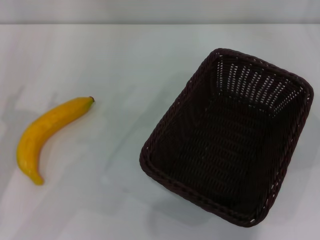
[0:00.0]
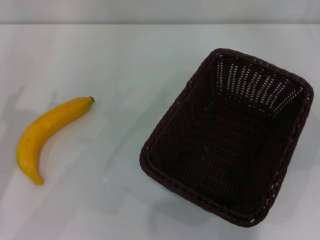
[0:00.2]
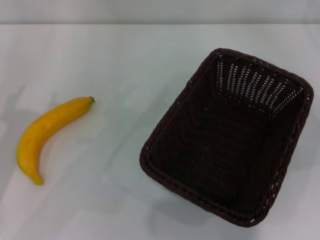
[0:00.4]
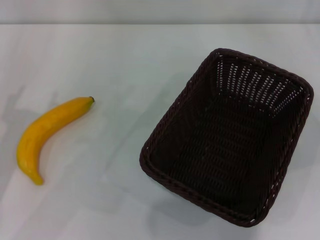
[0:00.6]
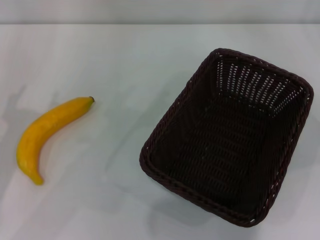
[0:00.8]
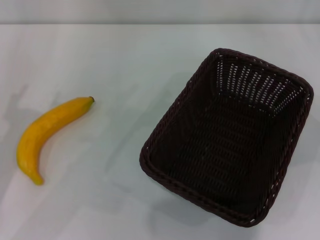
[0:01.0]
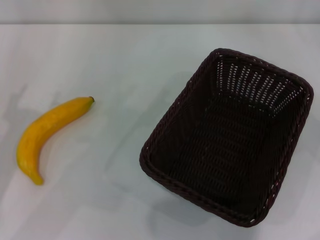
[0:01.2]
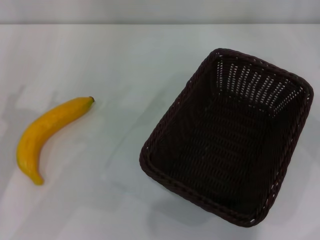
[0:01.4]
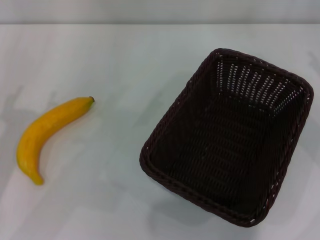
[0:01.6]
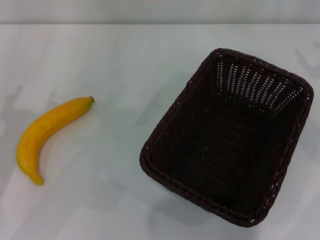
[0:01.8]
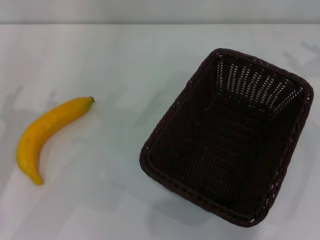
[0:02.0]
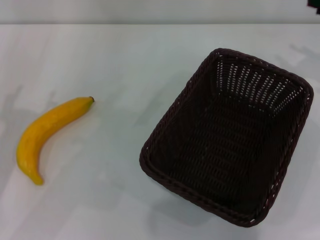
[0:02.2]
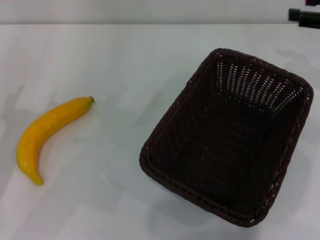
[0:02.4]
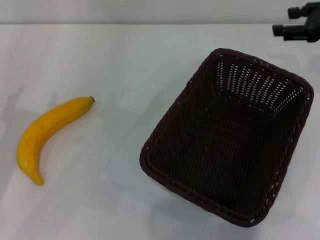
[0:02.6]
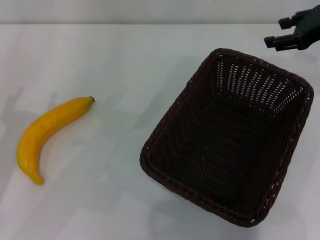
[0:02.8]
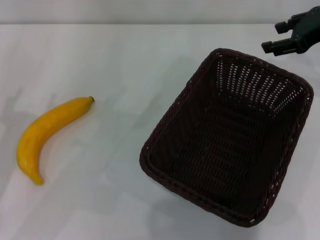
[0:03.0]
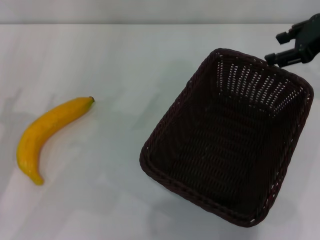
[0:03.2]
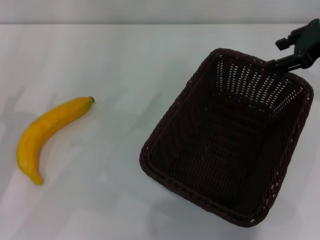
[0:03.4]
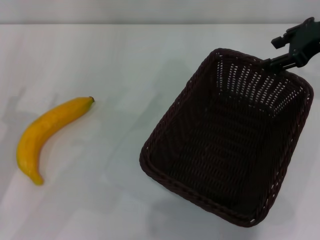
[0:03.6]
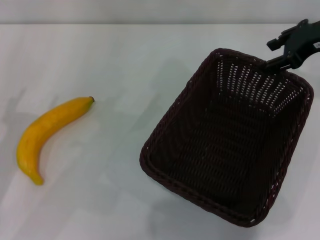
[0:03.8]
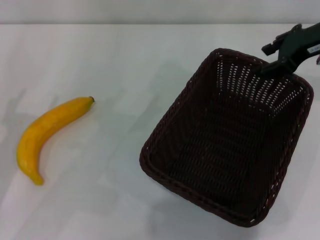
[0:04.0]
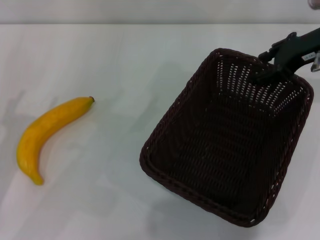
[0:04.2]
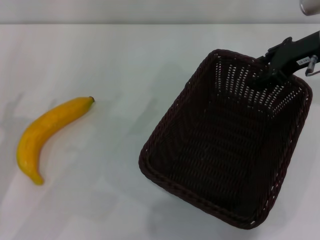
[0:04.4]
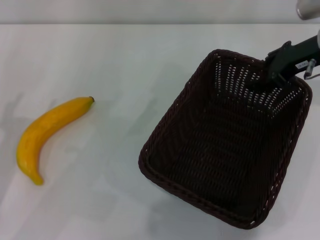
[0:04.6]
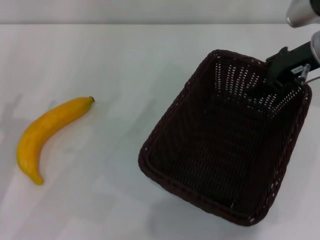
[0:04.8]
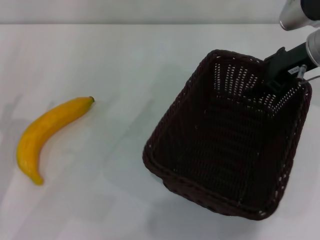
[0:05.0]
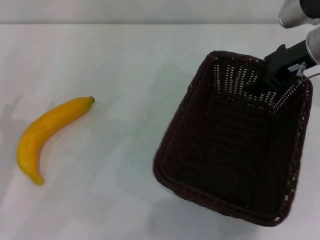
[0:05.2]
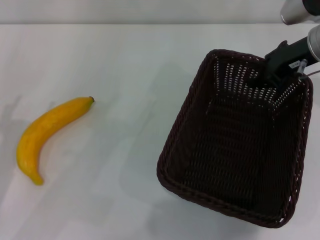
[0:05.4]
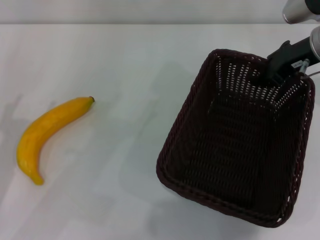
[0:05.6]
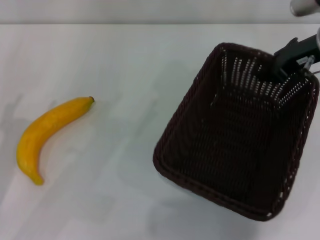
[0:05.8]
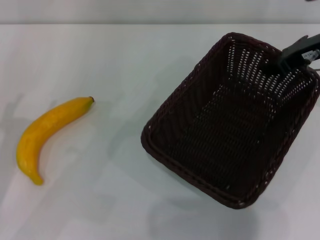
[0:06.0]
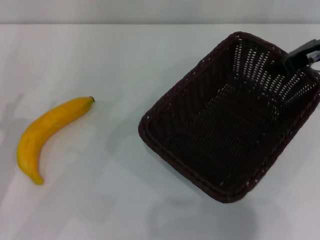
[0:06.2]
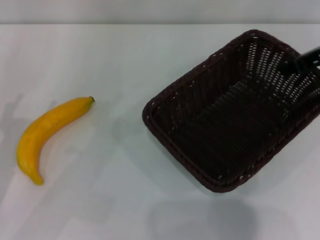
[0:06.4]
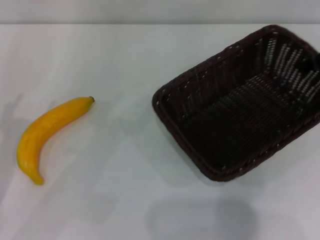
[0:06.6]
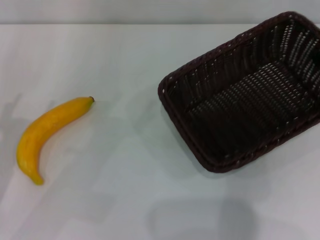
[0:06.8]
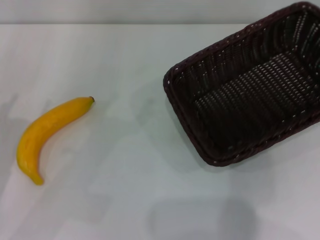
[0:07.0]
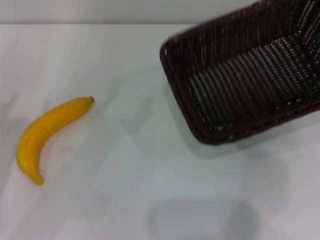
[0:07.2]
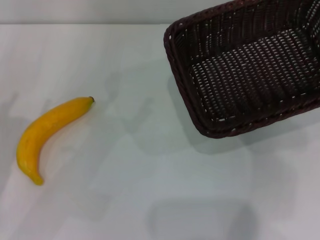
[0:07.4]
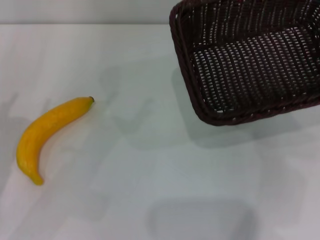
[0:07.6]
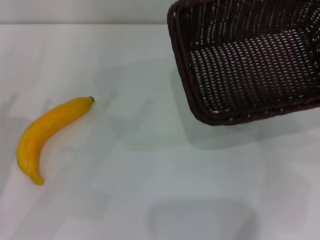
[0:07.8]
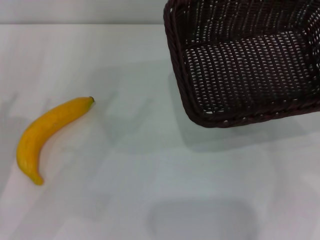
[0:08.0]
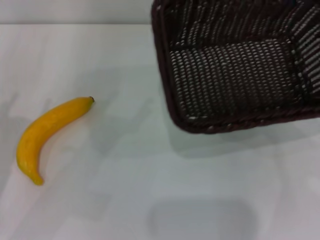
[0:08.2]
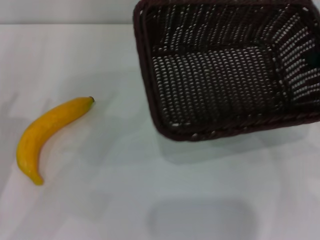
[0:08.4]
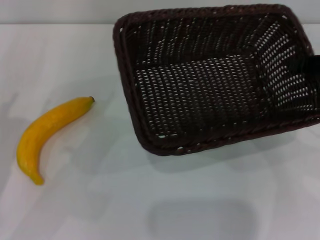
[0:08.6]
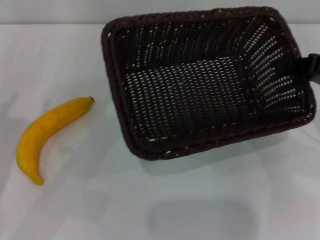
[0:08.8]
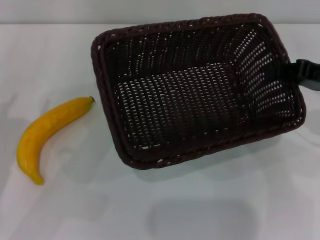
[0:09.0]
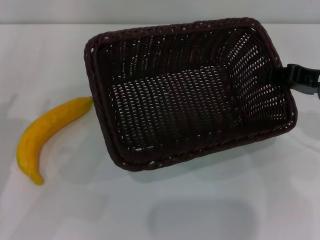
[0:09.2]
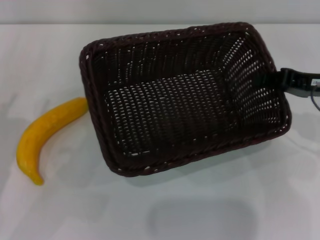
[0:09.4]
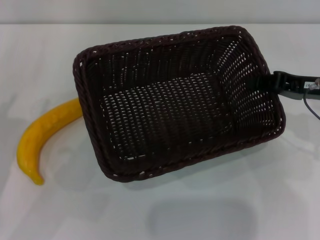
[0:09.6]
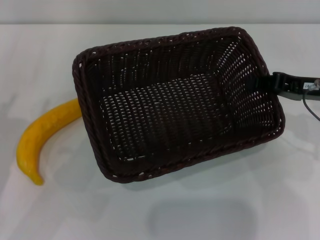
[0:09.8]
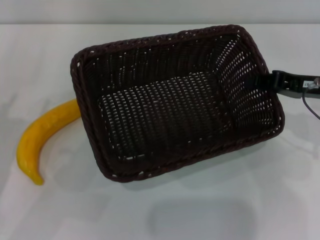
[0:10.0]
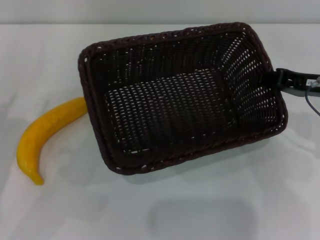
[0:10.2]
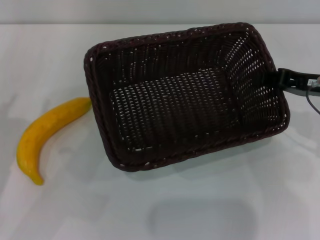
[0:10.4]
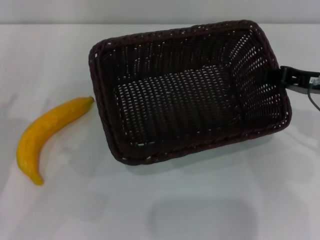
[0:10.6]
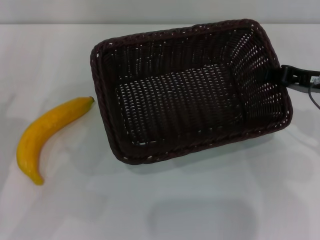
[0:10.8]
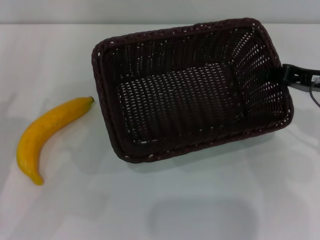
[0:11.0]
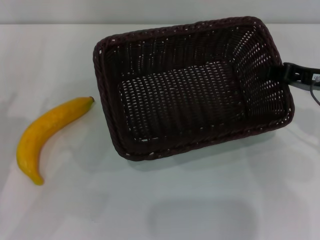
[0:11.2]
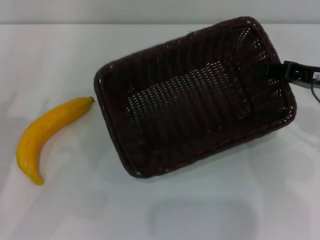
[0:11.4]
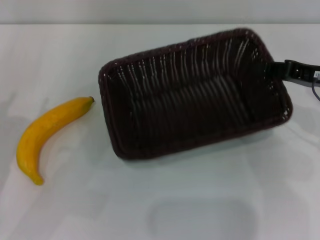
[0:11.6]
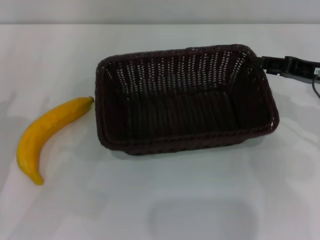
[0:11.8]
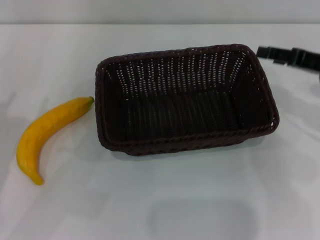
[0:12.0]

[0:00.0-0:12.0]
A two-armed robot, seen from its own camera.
Step, 0:00.0 to 0:05.8: Pick up the dark basket with the right gripper.
Step, 0:06.2 to 0:11.8: Place the dark basket in the center of view with the right gripper.
0:01.6 to 0:03.0: The right gripper travels to the left, forward and upward by about 15 cm.
0:03.0 to 0:04.4: The grippers stay close to where they were, moving slightly.
0:04.4 to 0:06.0: The right gripper closes up.
0:06.0 to 0:07.6: The right gripper shifts about 15 cm to the right, backward and upward.
0:07.6 to 0:09.0: The right gripper moves to the left and downward, about 10 cm.
0:09.0 to 0:10.4: The grippers stay close to where they were, moving slightly.
0:10.4 to 0:12.0: The right gripper opens up.

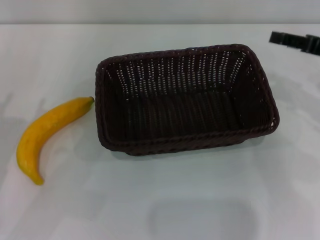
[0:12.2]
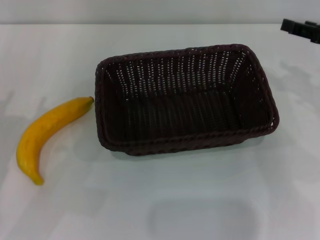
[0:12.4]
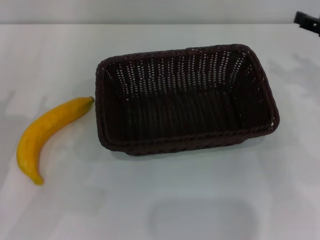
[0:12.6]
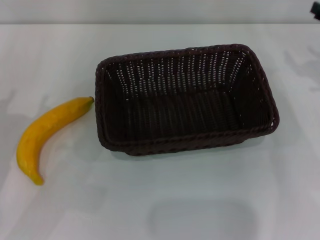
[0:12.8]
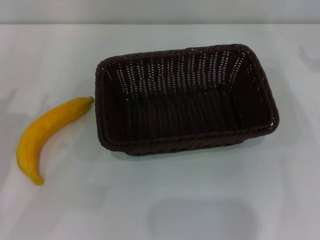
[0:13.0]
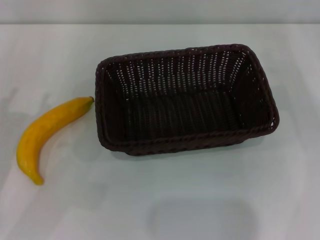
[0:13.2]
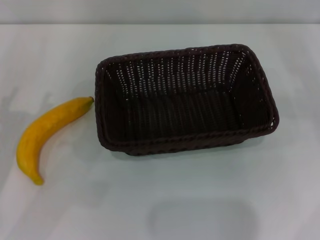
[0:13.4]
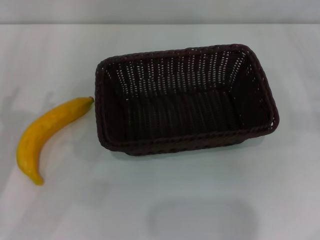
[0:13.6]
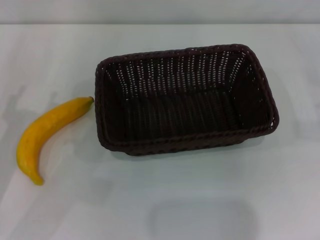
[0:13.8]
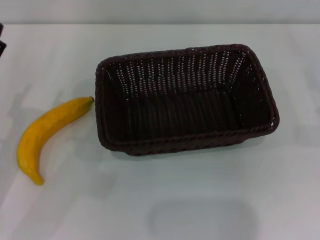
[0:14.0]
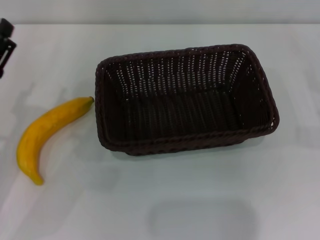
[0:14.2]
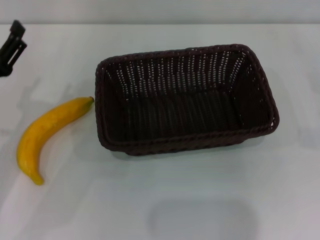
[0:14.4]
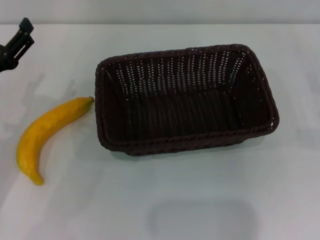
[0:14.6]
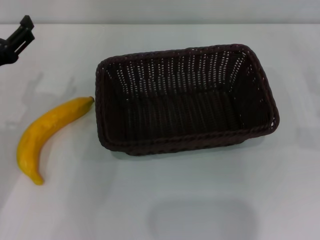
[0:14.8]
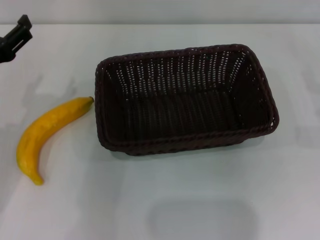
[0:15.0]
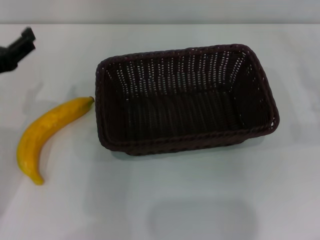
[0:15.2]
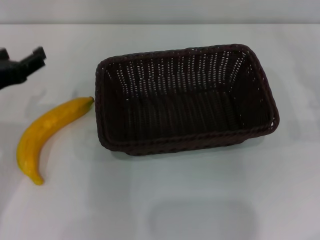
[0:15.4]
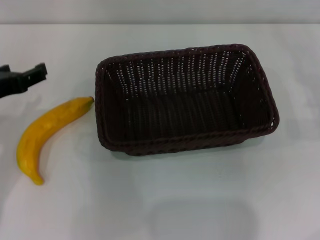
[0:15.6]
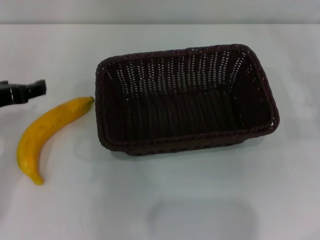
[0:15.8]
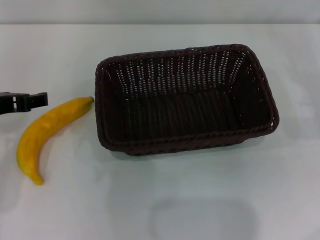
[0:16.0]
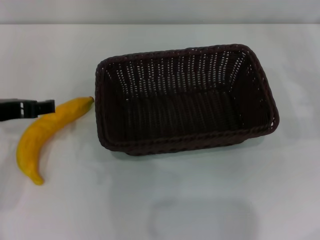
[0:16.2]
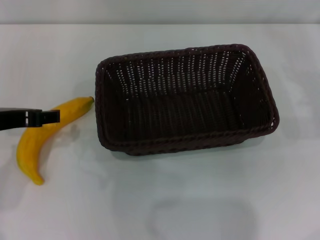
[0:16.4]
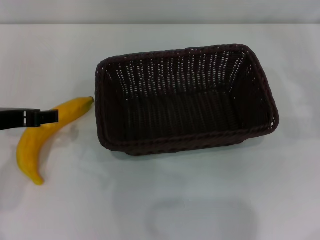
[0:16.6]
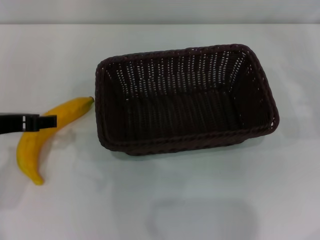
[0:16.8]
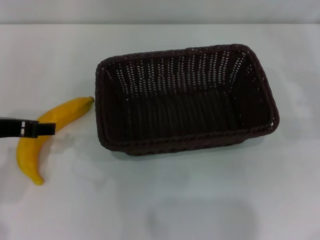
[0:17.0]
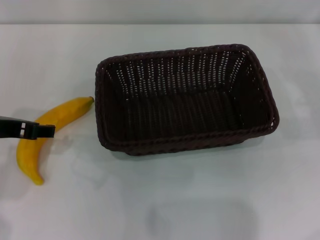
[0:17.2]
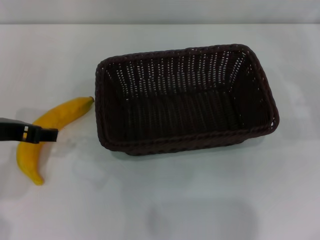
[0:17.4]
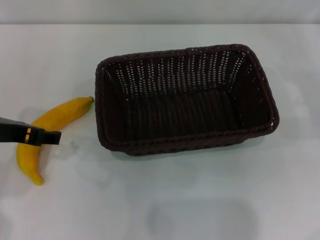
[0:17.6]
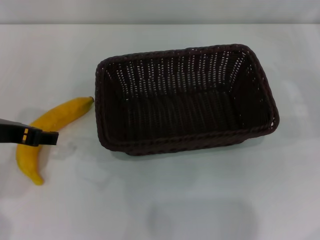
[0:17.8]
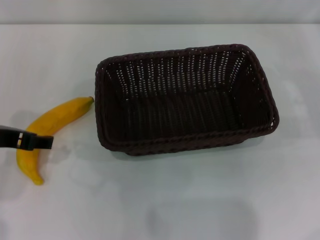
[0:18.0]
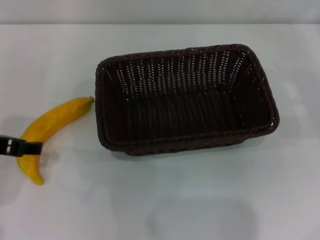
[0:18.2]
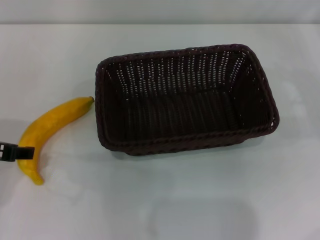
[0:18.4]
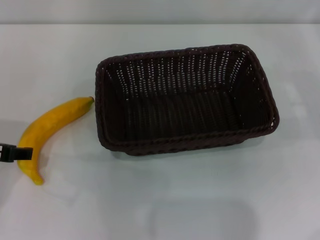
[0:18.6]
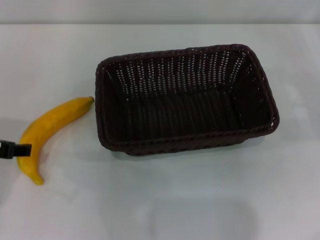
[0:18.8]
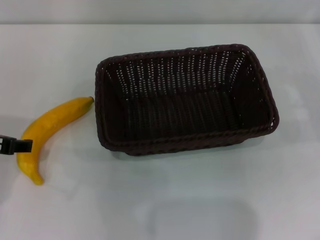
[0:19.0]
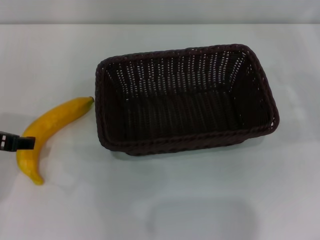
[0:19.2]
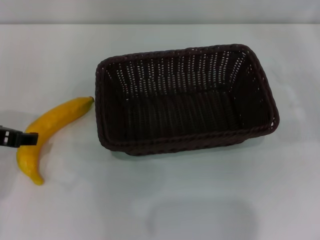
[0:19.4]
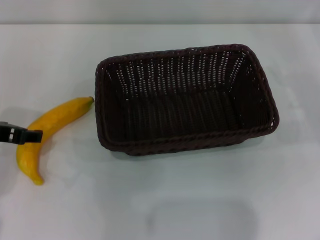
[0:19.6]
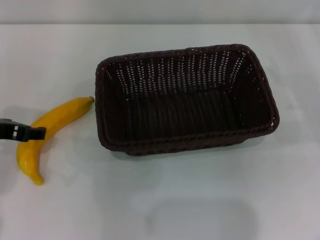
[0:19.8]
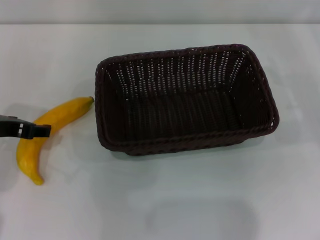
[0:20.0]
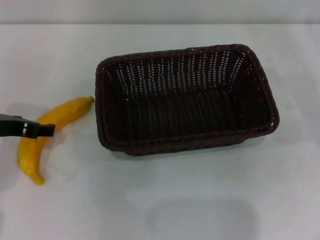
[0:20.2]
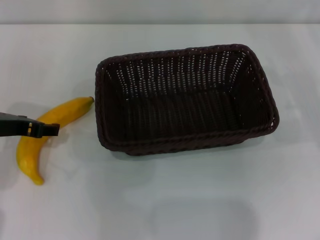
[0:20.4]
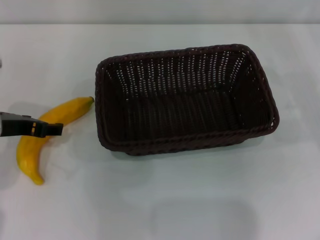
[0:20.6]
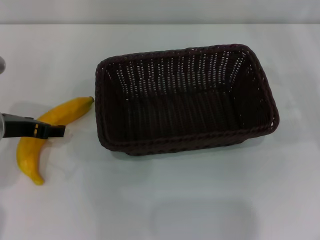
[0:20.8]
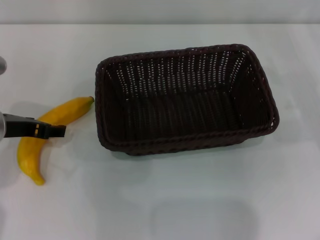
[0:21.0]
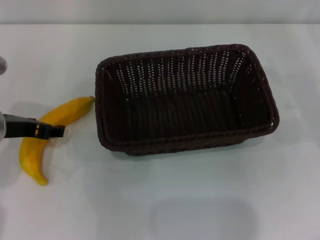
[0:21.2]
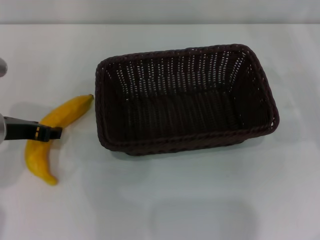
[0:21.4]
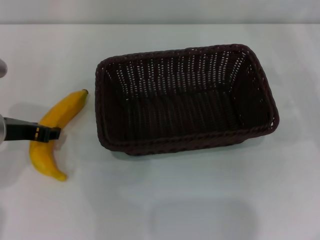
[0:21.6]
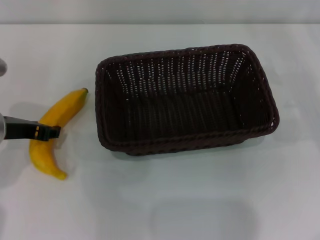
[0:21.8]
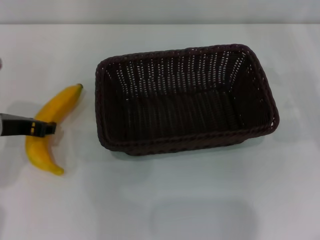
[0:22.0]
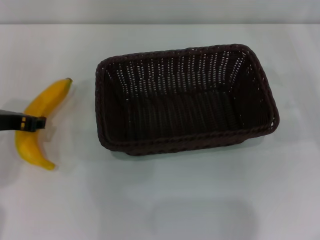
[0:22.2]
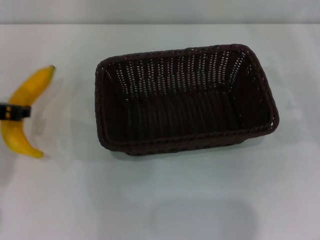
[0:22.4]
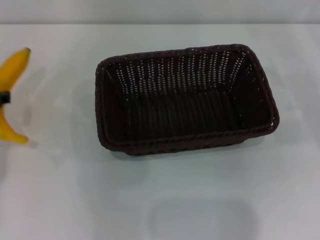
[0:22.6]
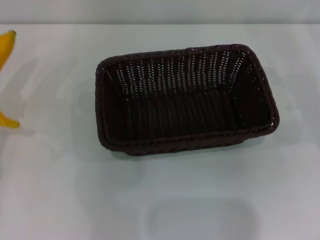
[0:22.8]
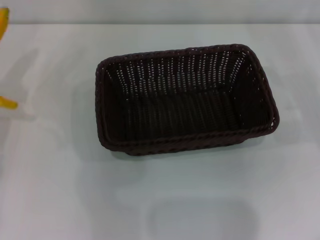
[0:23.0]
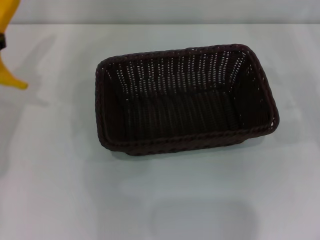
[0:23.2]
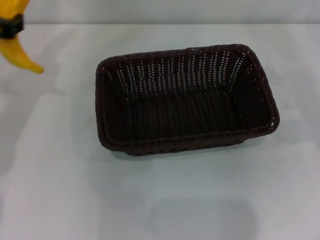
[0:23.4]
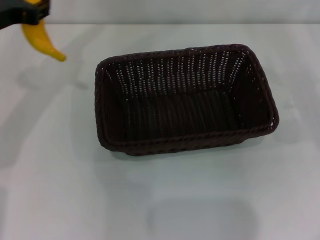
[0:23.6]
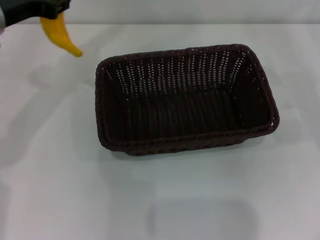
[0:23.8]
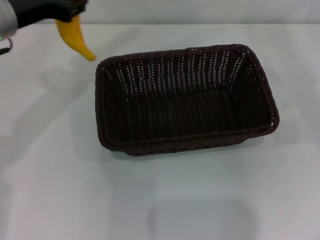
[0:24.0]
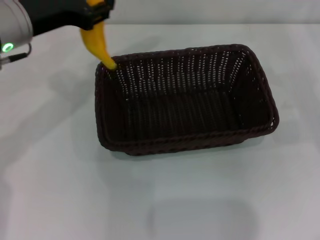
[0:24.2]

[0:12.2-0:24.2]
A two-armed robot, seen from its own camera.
Step, 0:12.2 to 0:22.2: Pick up the banana with the left gripper.
0:12.2 to 0:13.8: The right gripper is displaced to the right and downward by roughly 15 cm.
0:13.8 to 0:15.2: The left gripper goes about 10 cm upward.
0:16.6 to 0:19.8: The grippers make only small movements.
0:19.8 to 0:21.2: The grippers make only small movements.
0:21.2 to 0:22.6: The left gripper changes place by about 5 cm, and closes.
0:22.6 to 0:24.2: The left gripper travels to the right, upward and forward by about 10 cm.
